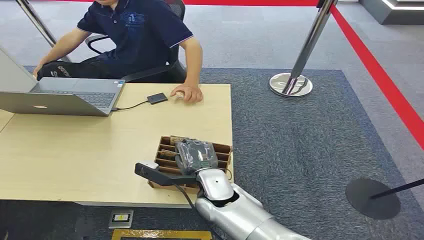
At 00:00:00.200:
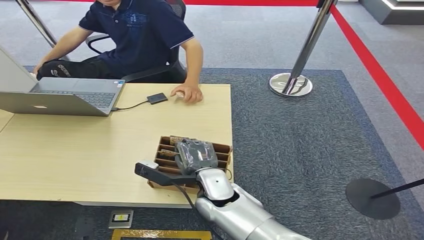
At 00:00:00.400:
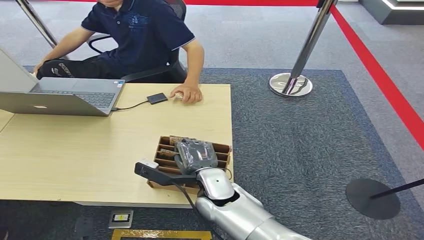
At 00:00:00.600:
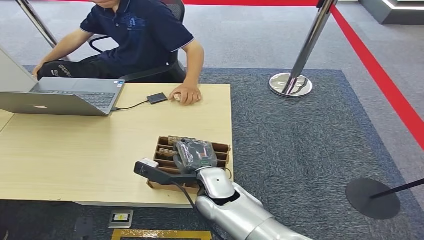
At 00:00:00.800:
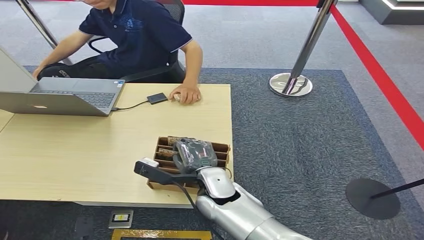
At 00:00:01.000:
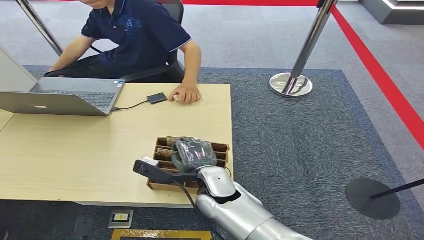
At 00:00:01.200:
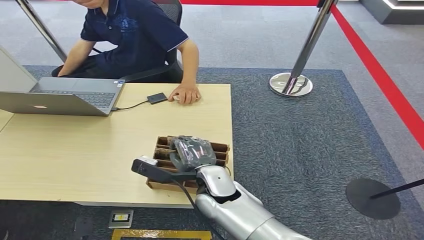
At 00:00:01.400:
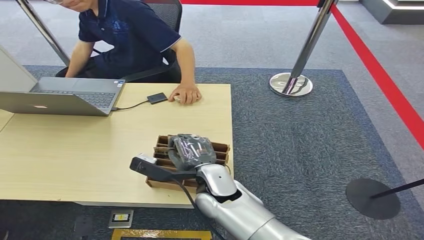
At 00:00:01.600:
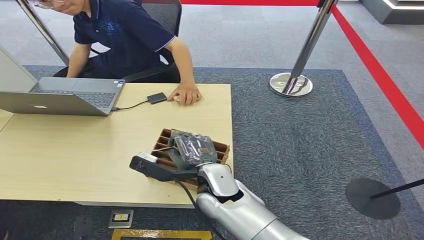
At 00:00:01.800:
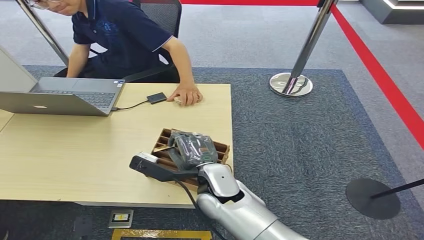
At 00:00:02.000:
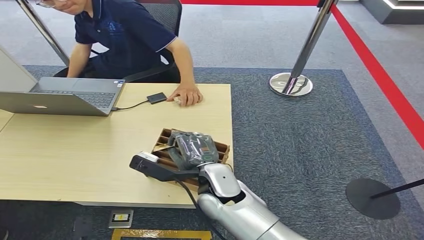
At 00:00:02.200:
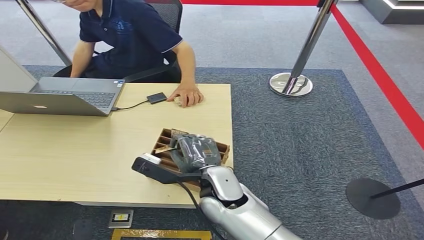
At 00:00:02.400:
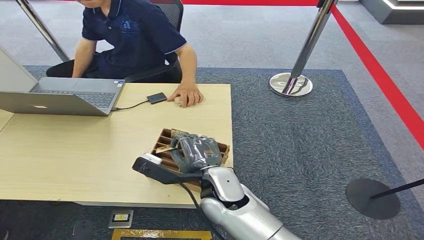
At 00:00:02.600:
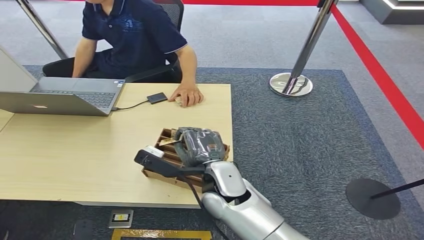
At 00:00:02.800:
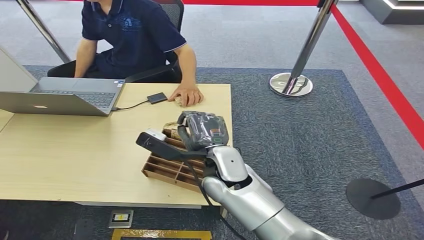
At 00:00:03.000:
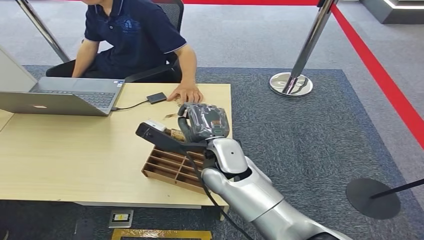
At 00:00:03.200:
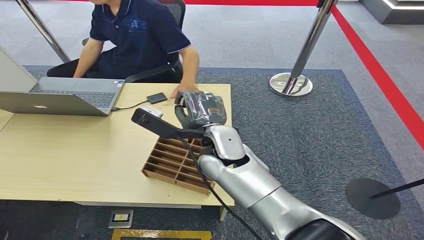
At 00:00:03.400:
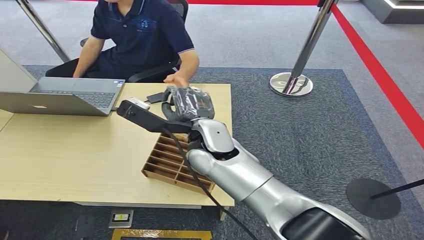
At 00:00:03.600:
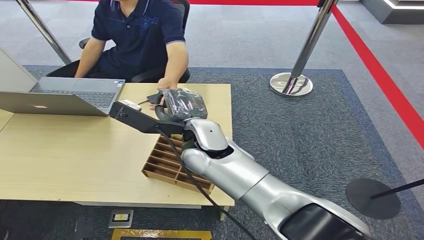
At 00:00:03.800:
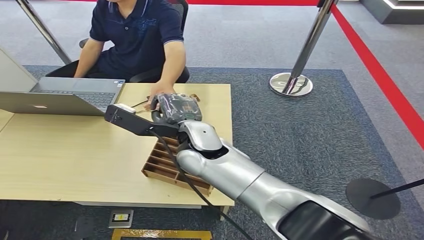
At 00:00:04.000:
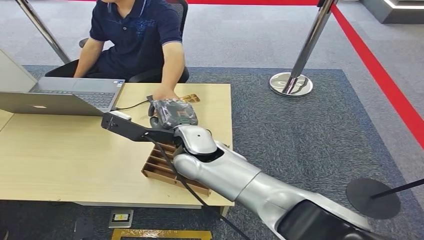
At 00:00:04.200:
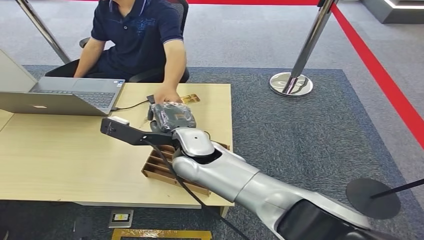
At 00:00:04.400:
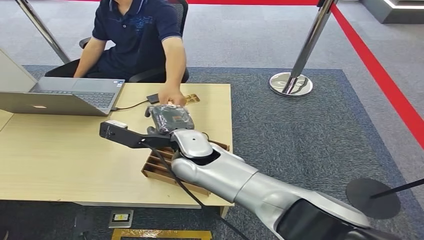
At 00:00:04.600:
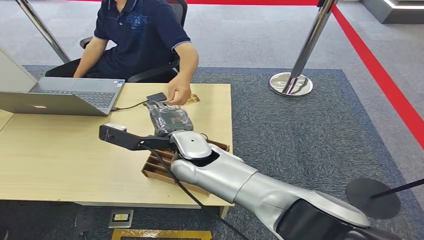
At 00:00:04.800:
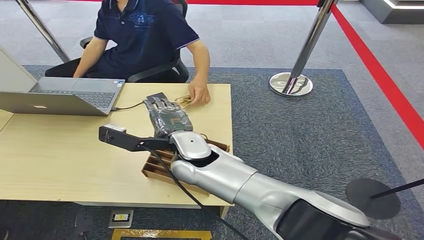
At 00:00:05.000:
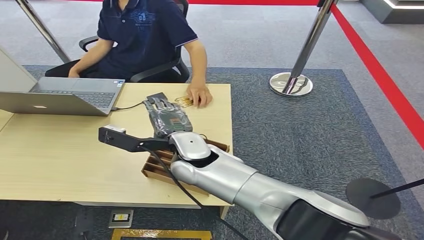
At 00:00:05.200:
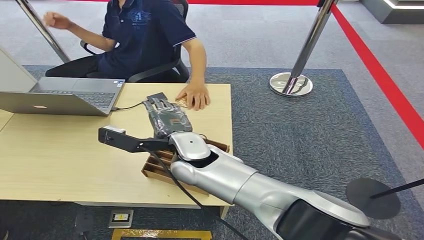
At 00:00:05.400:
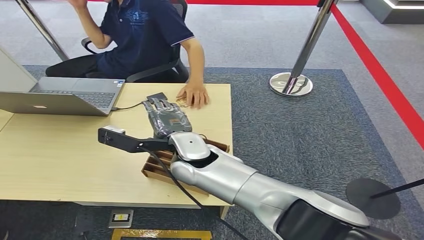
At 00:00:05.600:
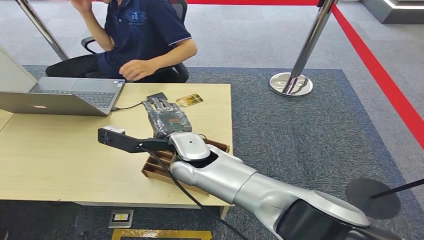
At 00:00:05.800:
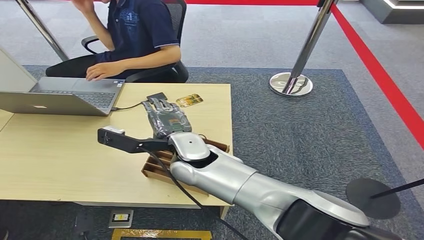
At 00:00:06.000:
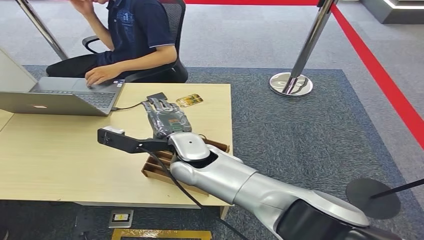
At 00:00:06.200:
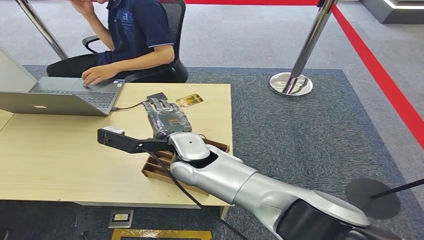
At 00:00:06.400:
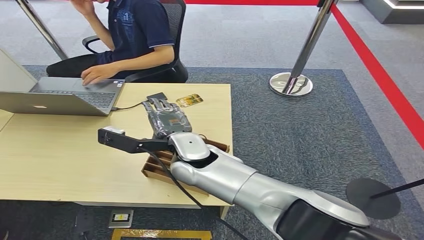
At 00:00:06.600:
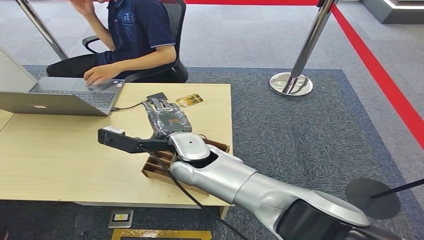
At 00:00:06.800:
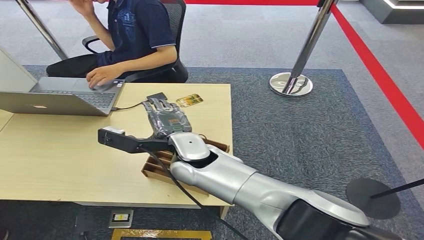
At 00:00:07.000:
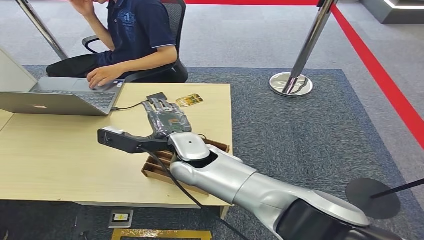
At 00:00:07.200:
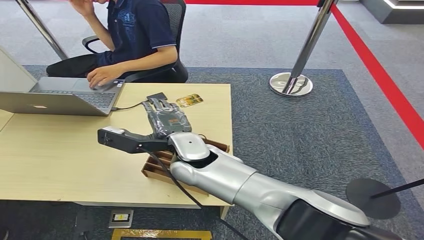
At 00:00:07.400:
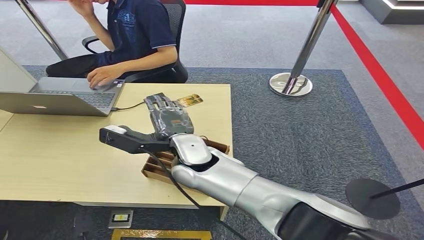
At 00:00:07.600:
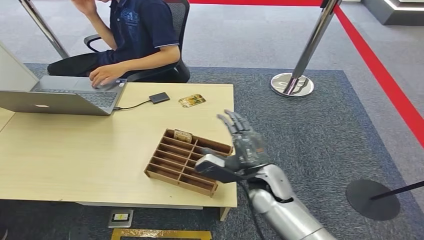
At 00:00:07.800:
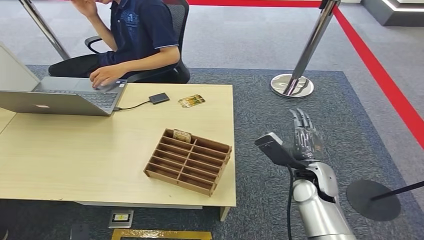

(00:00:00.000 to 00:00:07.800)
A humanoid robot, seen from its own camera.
Step, 00:00:00.000 - 00:00:01.600: Pick up the key card from the card box.
Step, 00:00:02.800 - 00:00:07.800: Hand the key card to the target.
00:00:01.600 - 00:00:03.200: The right hand moves upward and forward, roughly 10 cm.
00:00:03.200 - 00:00:04.600: There are only small adjustments of the hands.
00:00:04.600 - 00:00:06.200: Both hands stay about where they are.
